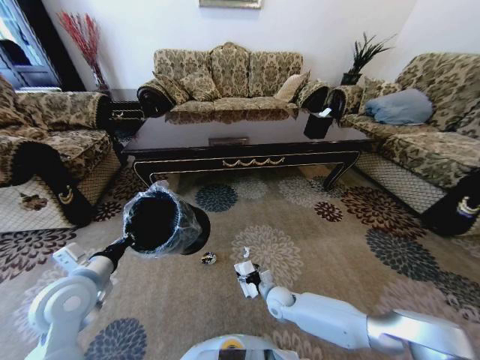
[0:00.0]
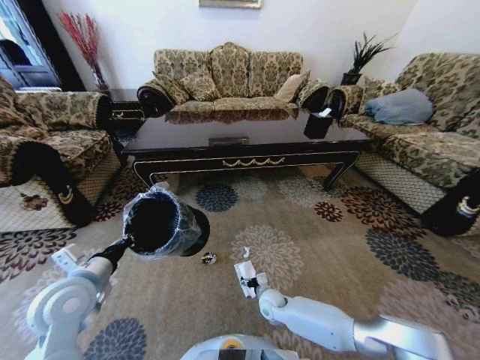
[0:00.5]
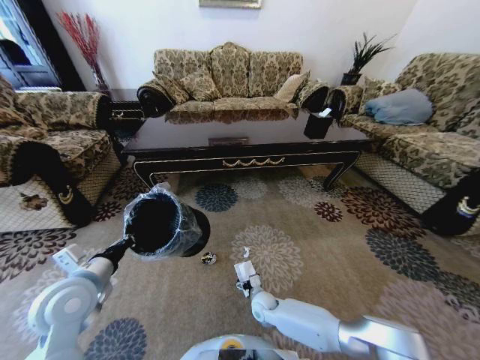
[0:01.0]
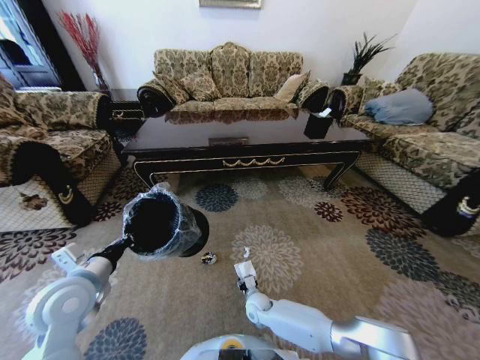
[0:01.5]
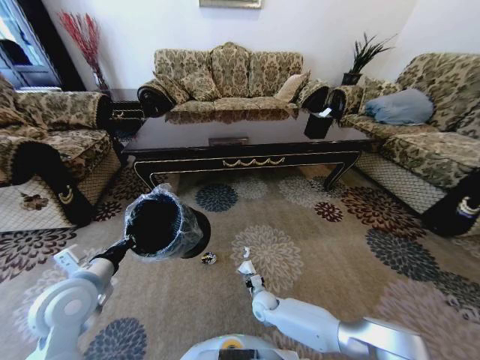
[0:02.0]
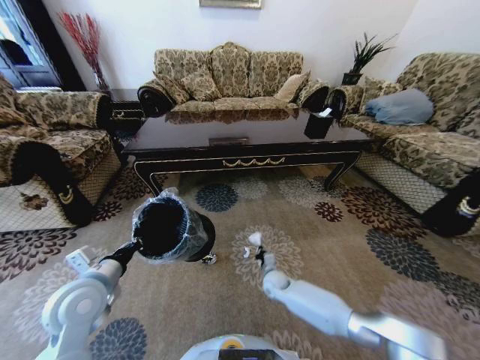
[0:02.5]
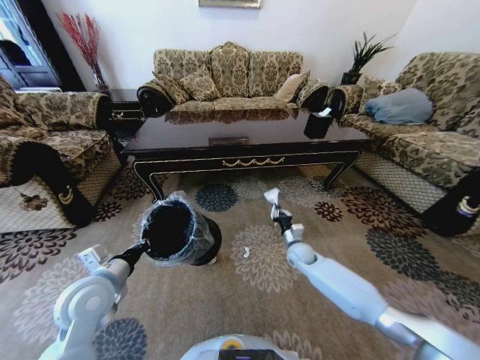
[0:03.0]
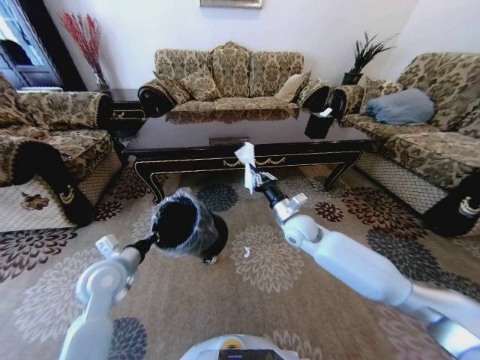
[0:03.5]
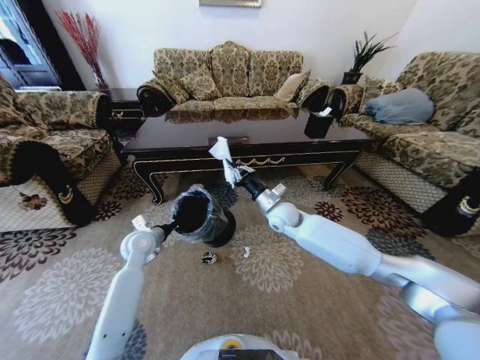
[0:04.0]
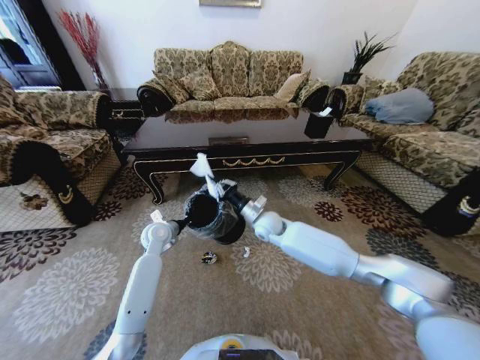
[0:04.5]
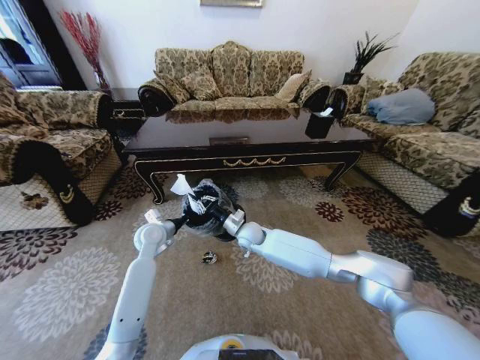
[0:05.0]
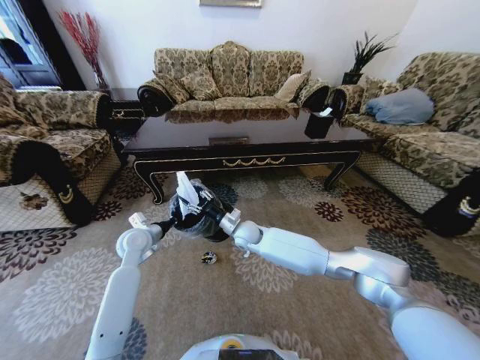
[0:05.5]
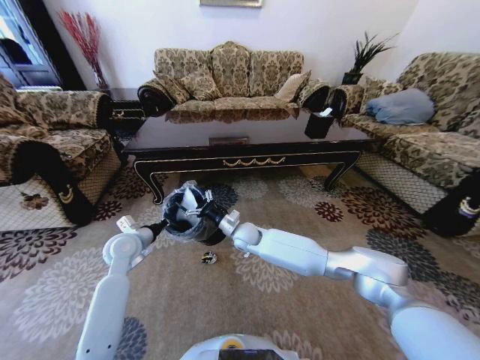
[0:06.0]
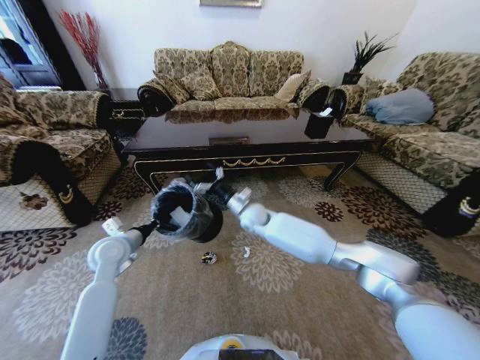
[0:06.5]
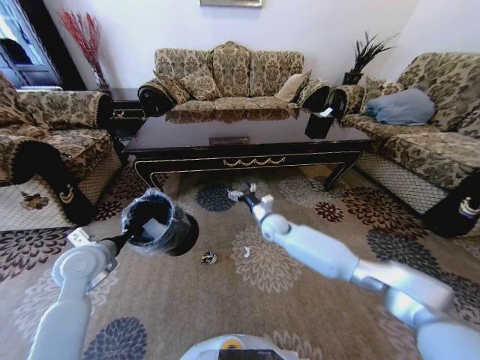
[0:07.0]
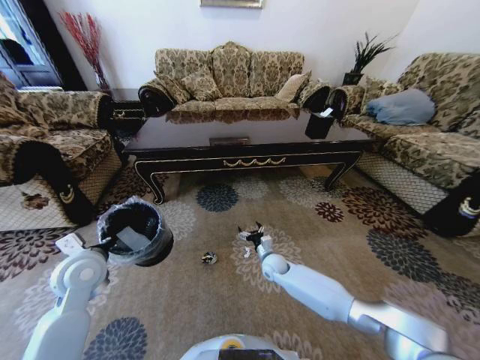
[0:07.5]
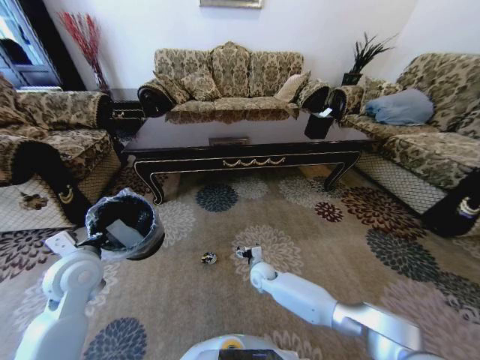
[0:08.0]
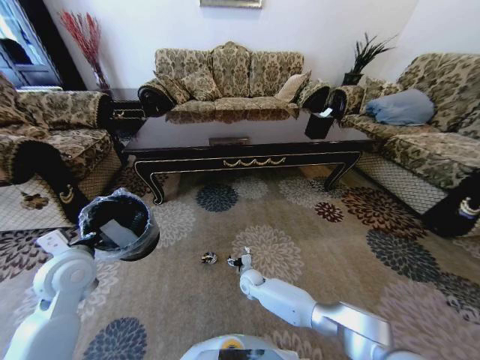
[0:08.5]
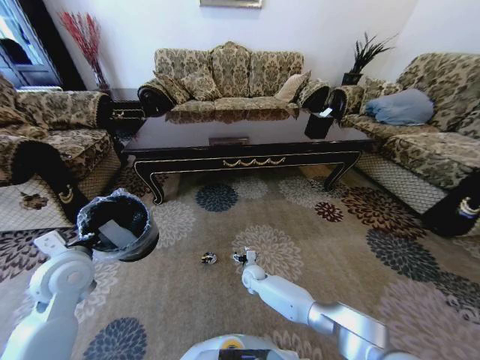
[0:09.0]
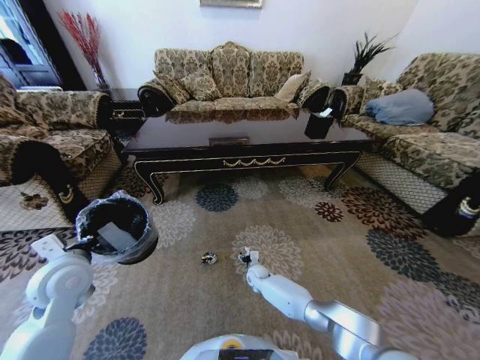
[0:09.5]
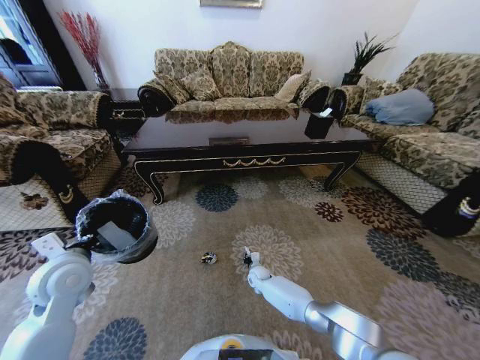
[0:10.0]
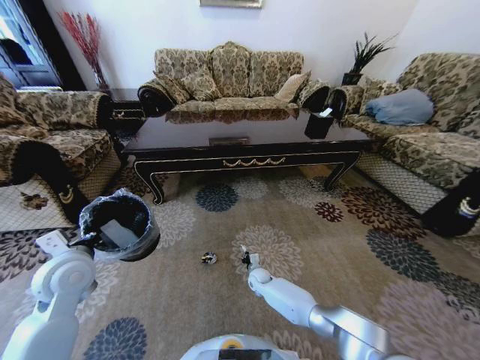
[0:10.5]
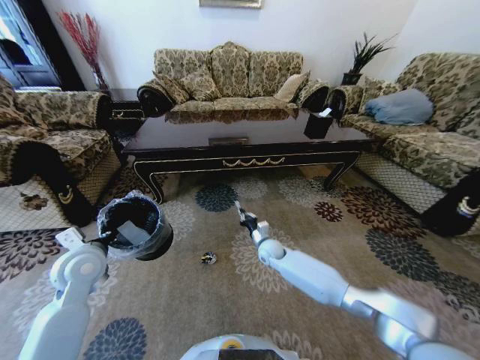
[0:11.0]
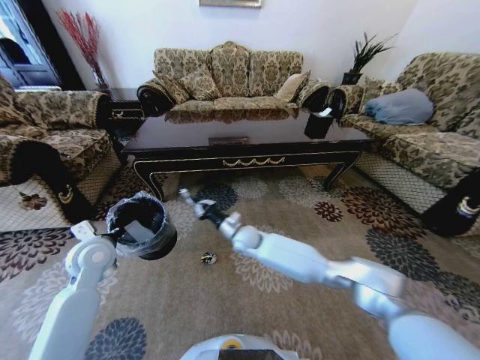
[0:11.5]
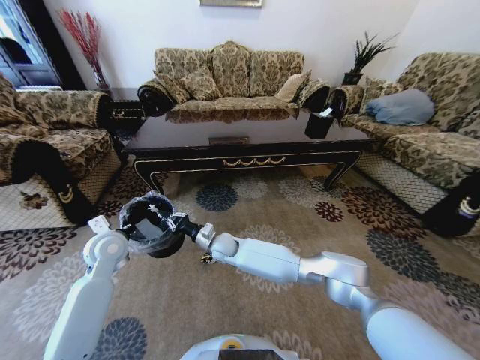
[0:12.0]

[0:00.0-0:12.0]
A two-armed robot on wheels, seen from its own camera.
Task of the whole recording: Move to the front of the table and pick up the trash from the floor, then place it into the trash bin.
0:00.0 to 0:02.0: The right gripper ends up roughly 5 cm from where it was, and closes its fingers.
0:02.0 to 0:04.0: The left gripper travels forward and downward by roughly 20 cm; the right gripper goes some 35 cm upward and forward.
0:04.0 to 0:06.0: The right gripper shifts roughly 15 cm to the left and downward, and opens its fingers.
0:06.0 to 0:08.0: The left gripper moves backward and upward, about 10 cm, while the right gripper shifts roughly 20 cm downward, to the right and backward.
0:08.0 to 0:10.0: The right gripper moves downward, some 10 cm, and closes its fingers.
0:10.0 to 0:12.0: The left gripper moves forward, roughly 10 cm. Meanwhile the right gripper moves upward and to the left, approximately 25 cm.

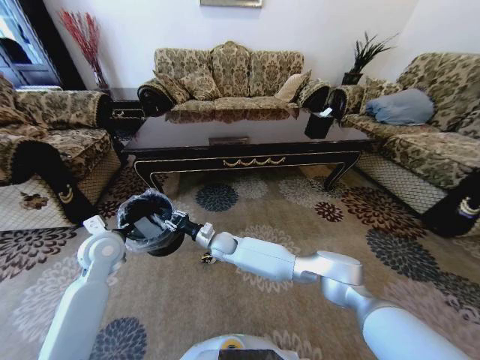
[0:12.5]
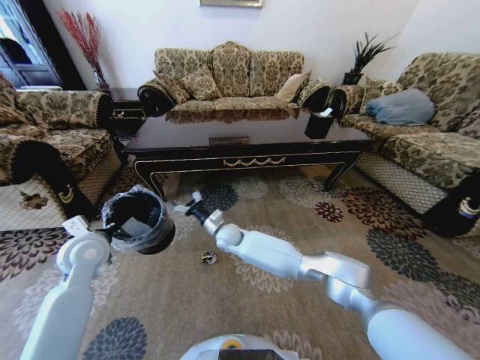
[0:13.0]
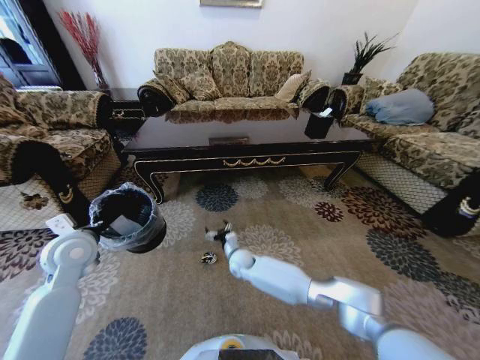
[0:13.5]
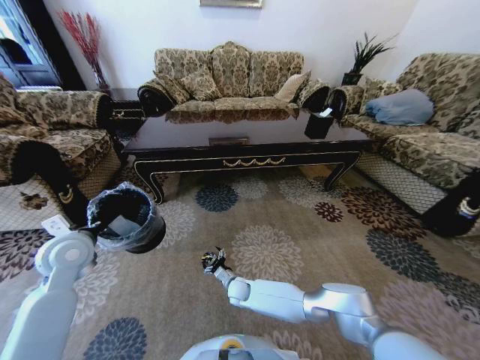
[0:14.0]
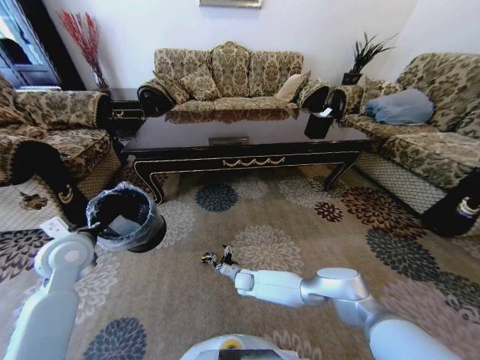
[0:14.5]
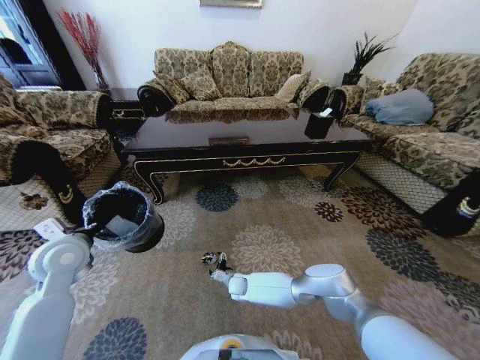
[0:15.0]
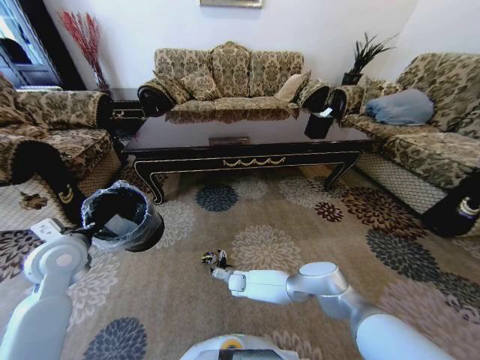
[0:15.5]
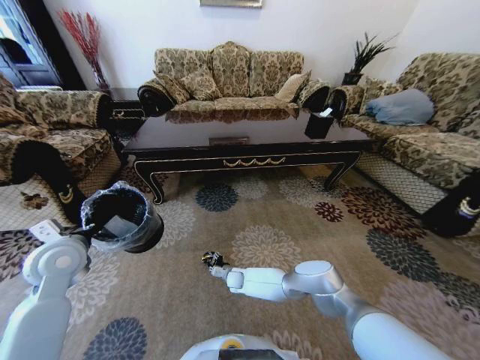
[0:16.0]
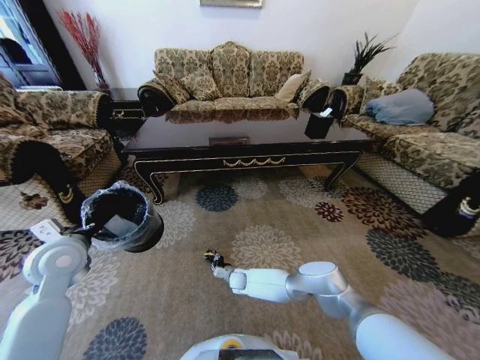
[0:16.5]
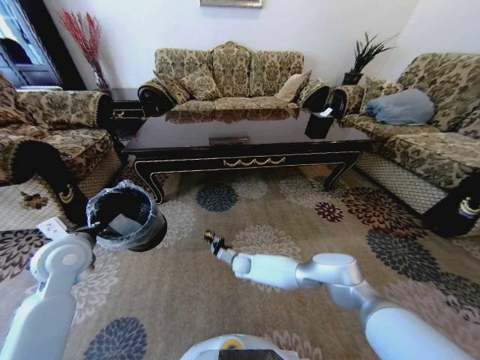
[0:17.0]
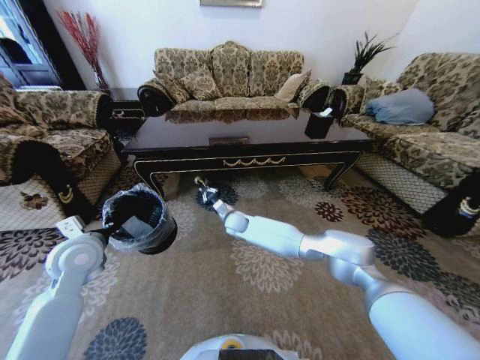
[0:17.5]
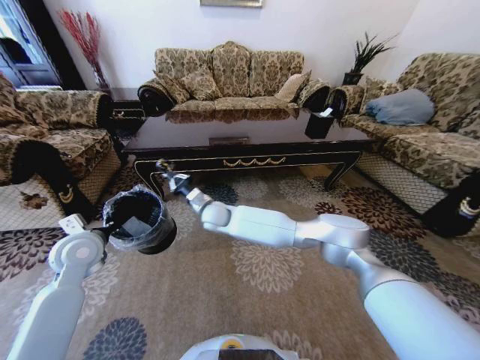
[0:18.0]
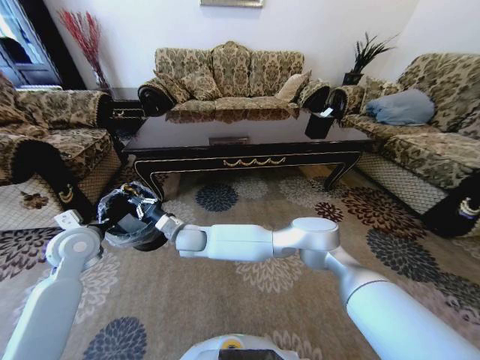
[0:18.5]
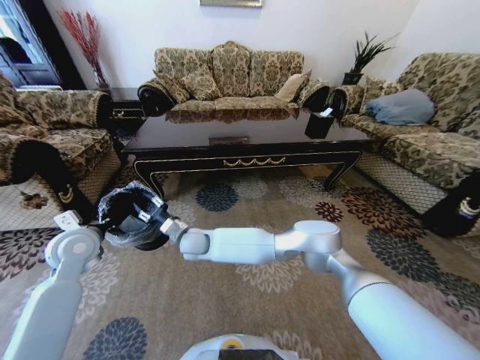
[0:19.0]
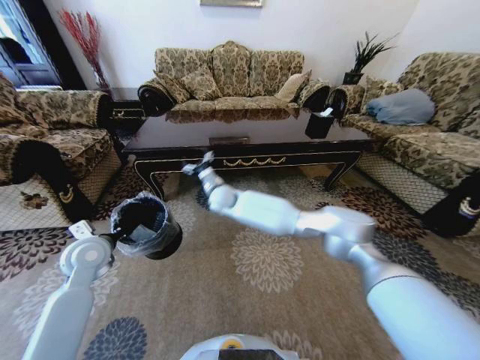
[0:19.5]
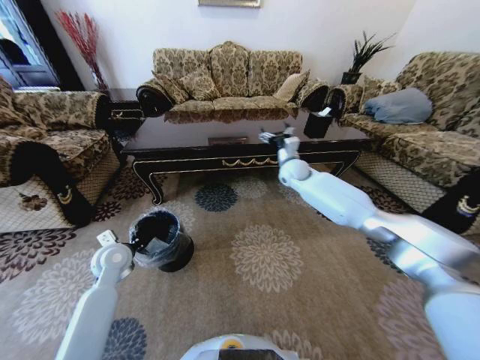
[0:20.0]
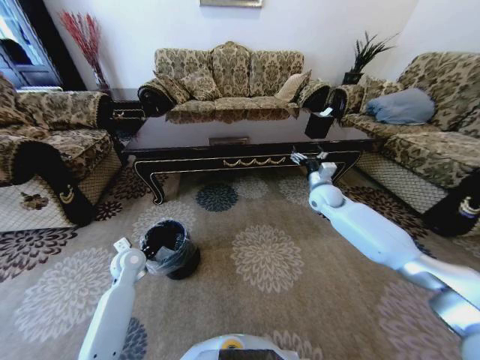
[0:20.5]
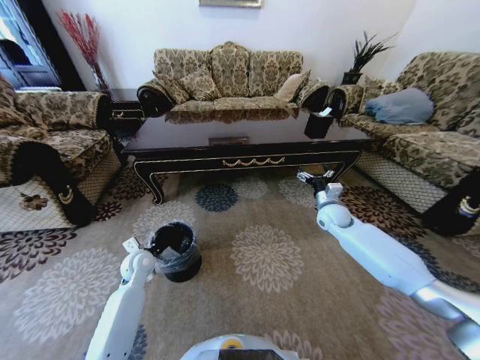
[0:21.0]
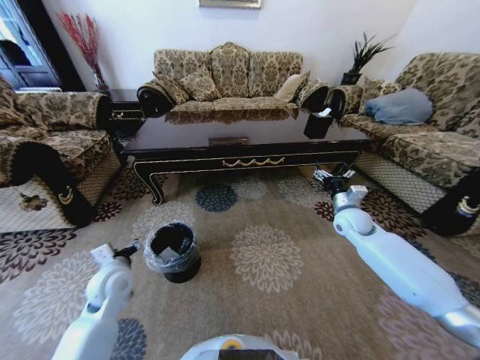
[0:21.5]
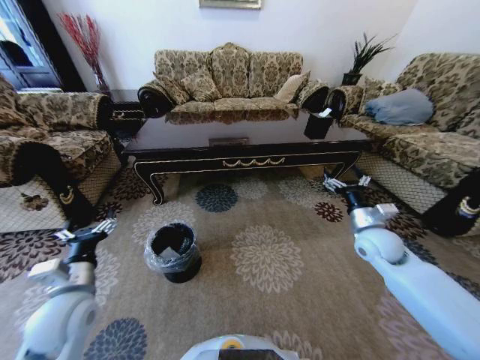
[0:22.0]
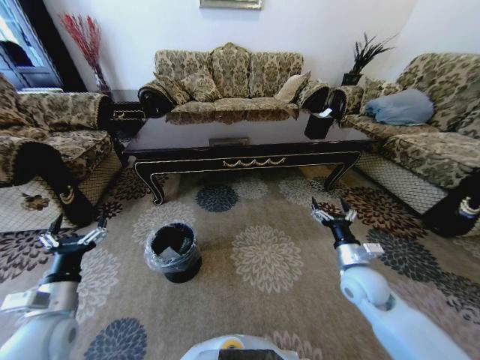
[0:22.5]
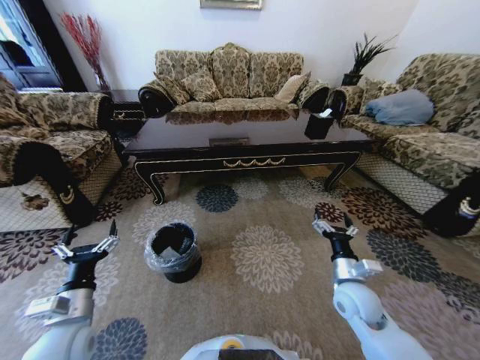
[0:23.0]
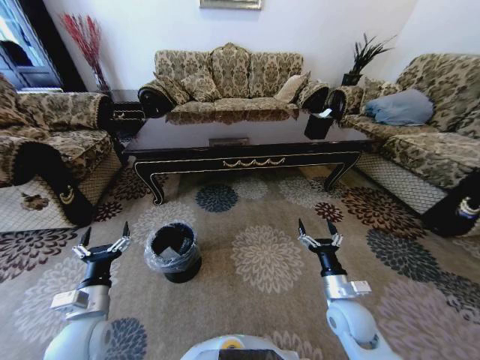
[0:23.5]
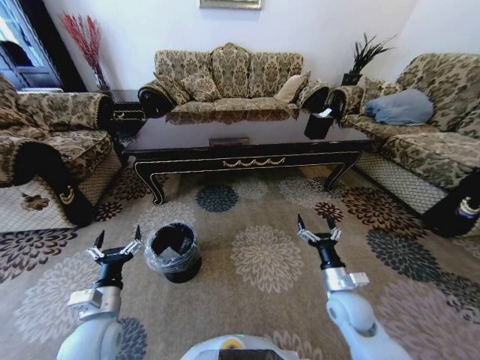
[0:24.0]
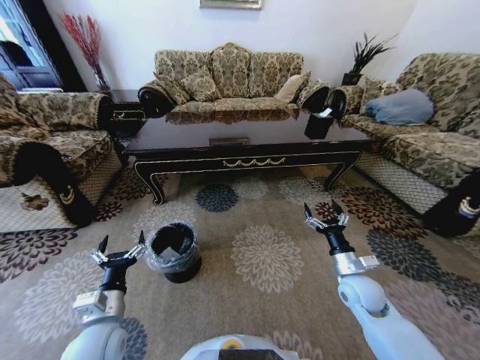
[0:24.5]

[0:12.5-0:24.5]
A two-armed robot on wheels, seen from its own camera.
Task of the whole recording: Move to the front of the table and pick up the trash from the floor, then place it into the trash bin.
0:12.5 to 0:14.5: The right gripper travels downward and to the right by some 20 cm, and opens. Meanwhile the left gripper moves approximately 5 cm.
0:14.5 to 0:16.5: The right gripper closes its fingers.
0:16.5 to 0:18.5: The right gripper moves upward and to the left, approximately 35 cm.
0:18.5 to 0:20.5: The left gripper is displaced downward and to the right by some 15 cm. Meanwhile the right gripper travels to the right by approximately 50 cm, and opens its fingers.
0:20.5 to 0:22.5: Both grippers travel together backward, some 20 cm. The left gripper opens up.
0:22.5 to 0:24.5: The left gripper goes about 10 cm to the right.

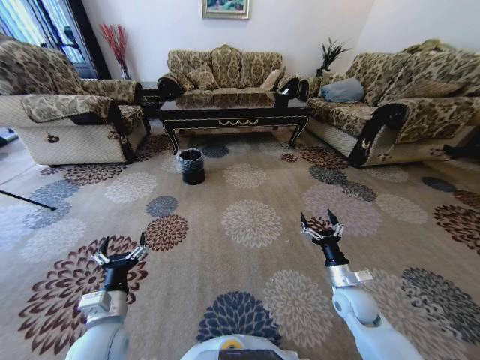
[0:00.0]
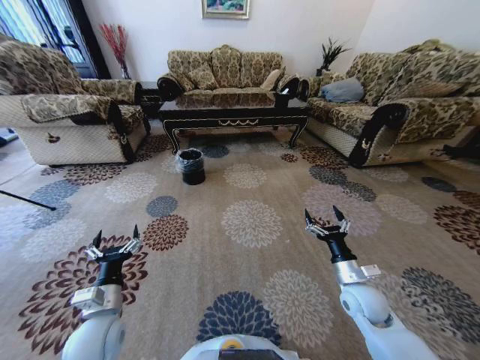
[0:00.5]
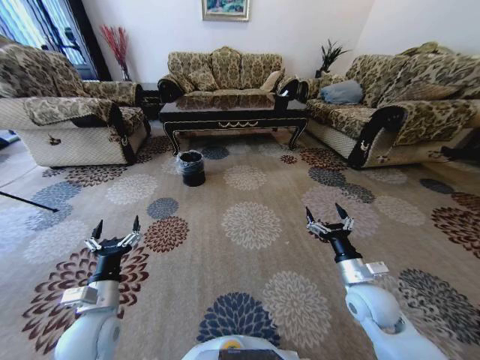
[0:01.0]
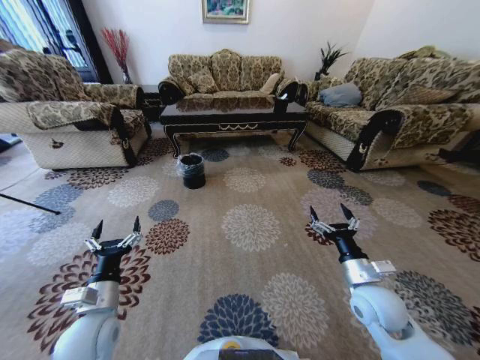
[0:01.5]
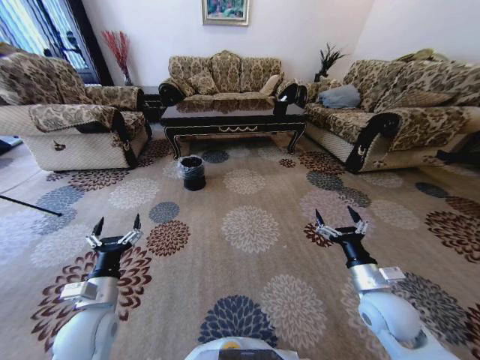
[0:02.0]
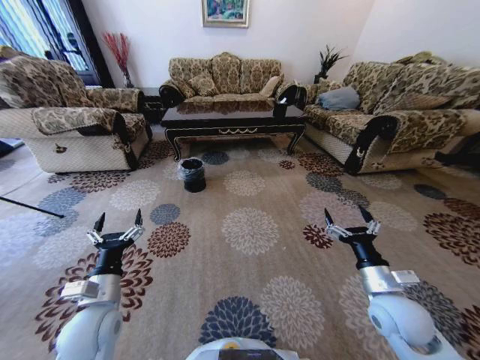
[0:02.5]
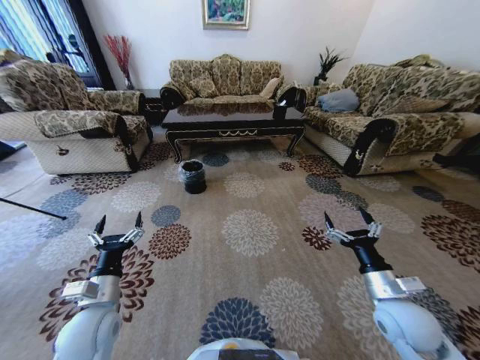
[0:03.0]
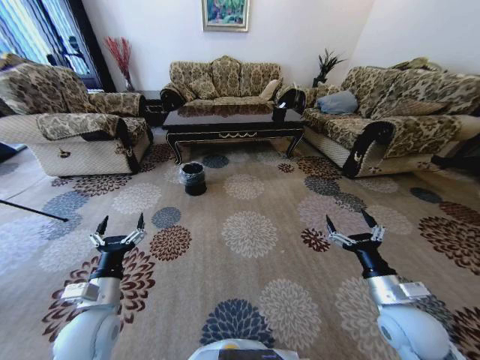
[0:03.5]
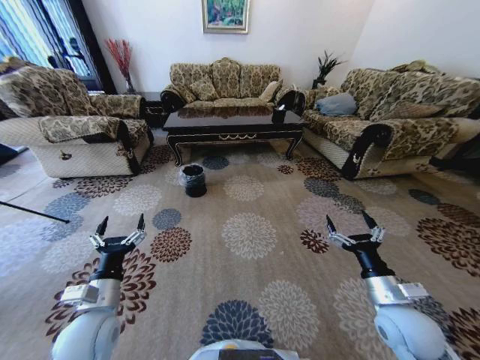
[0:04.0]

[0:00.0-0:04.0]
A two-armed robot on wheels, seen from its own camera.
Task of the whole recording: Move to the front of the table and pick up the trash from the floor, then place it into the trash bin.
0:00.0 to 0:02.0: The right gripper goes about 10 cm upward.
